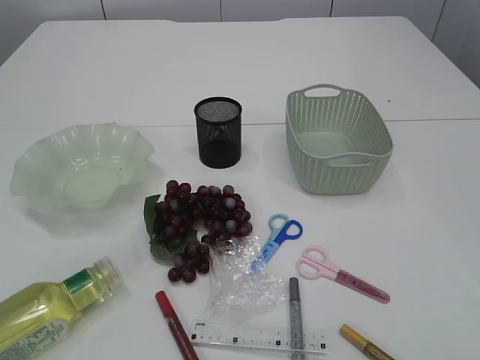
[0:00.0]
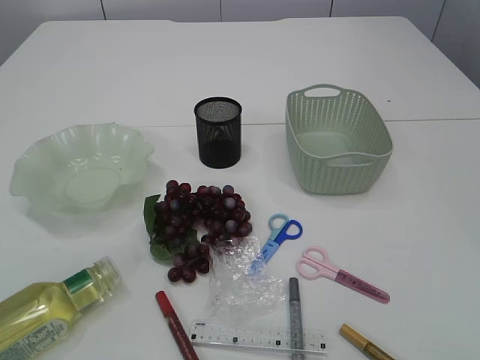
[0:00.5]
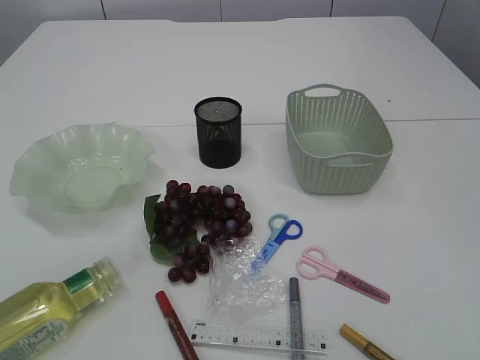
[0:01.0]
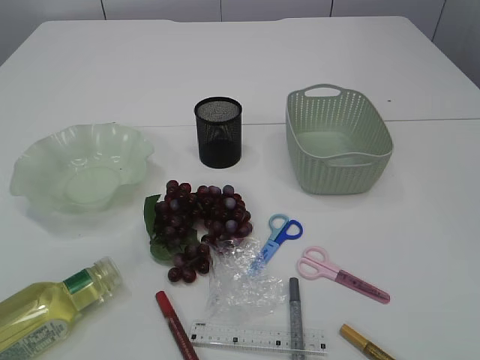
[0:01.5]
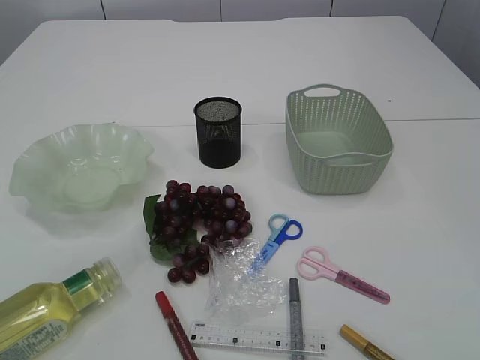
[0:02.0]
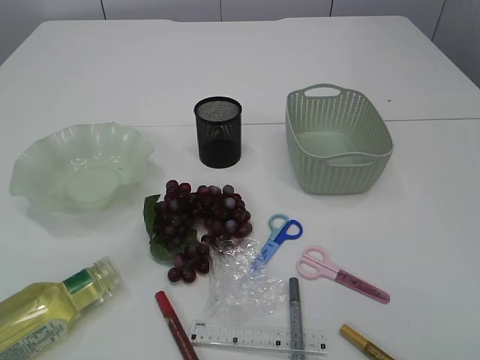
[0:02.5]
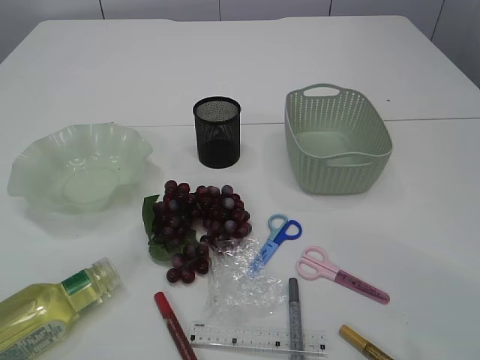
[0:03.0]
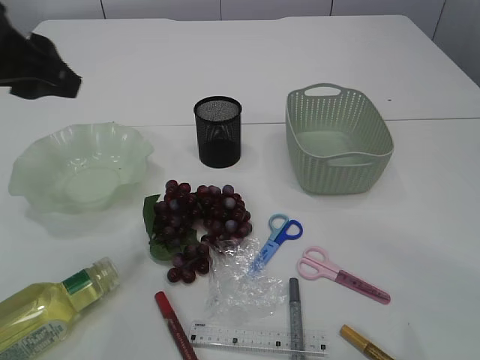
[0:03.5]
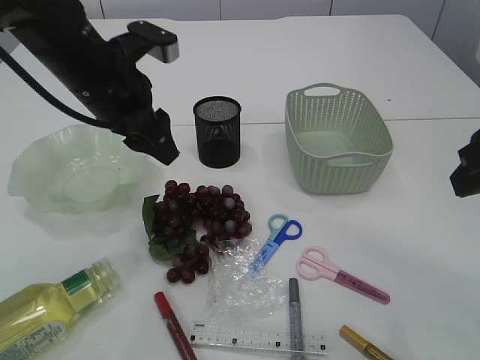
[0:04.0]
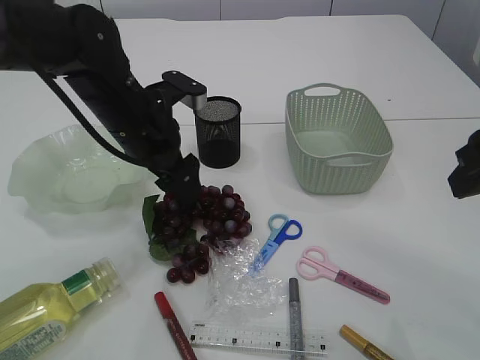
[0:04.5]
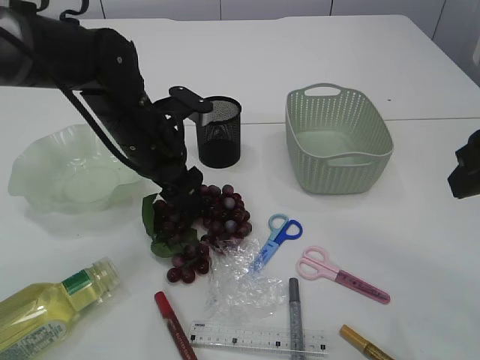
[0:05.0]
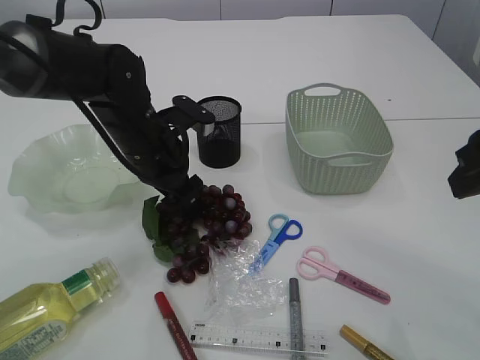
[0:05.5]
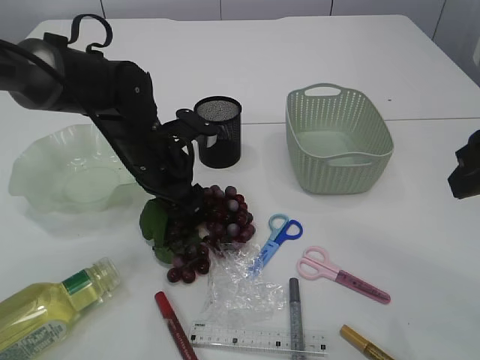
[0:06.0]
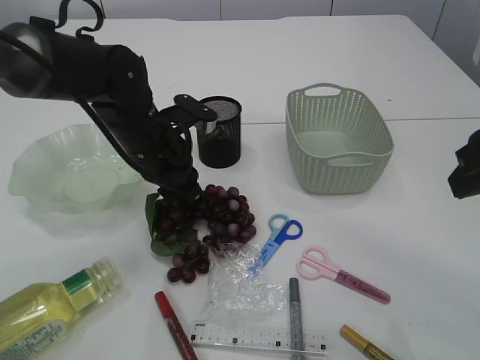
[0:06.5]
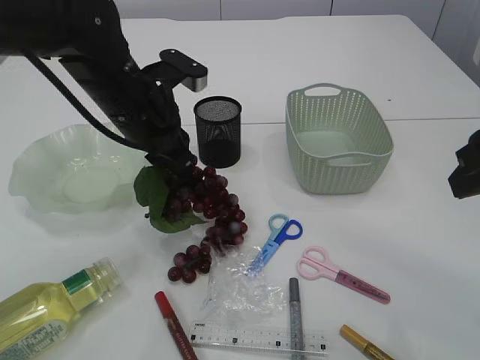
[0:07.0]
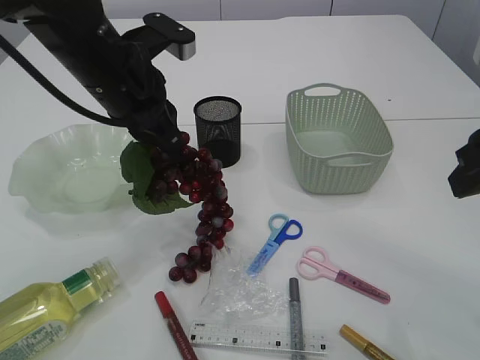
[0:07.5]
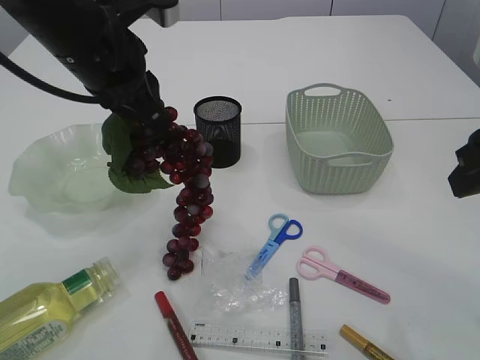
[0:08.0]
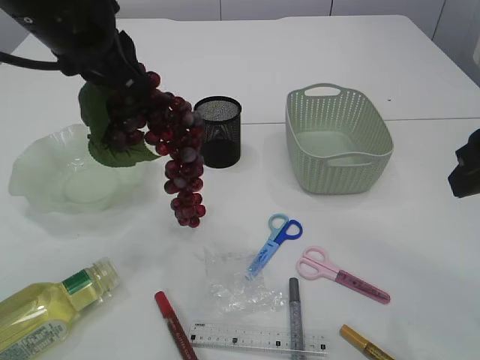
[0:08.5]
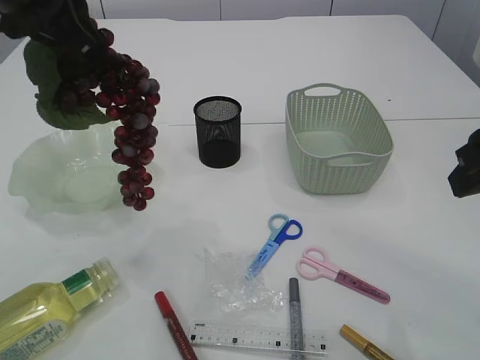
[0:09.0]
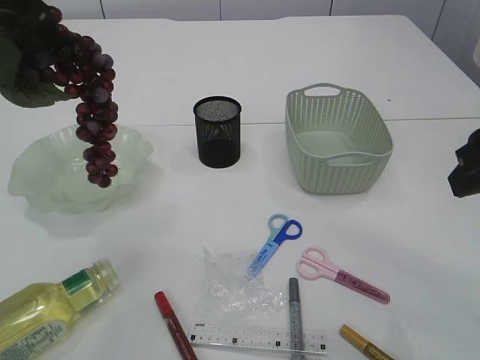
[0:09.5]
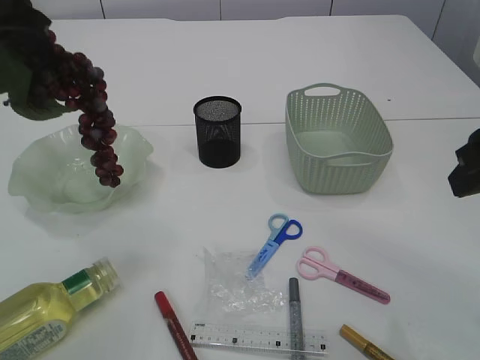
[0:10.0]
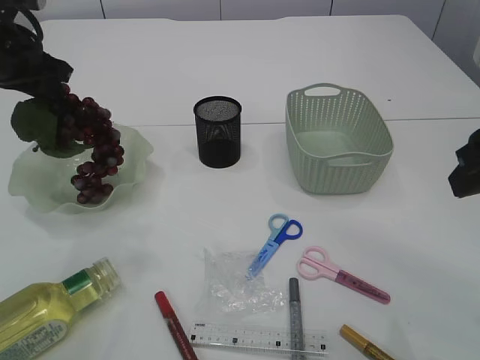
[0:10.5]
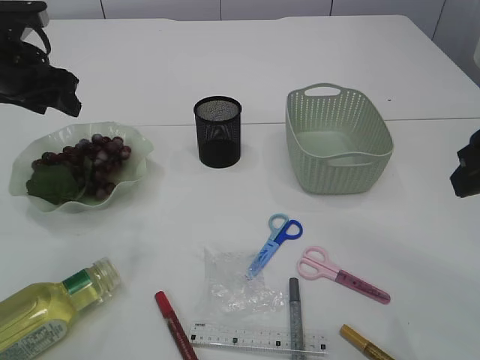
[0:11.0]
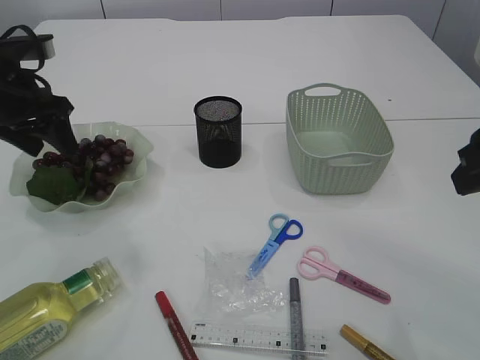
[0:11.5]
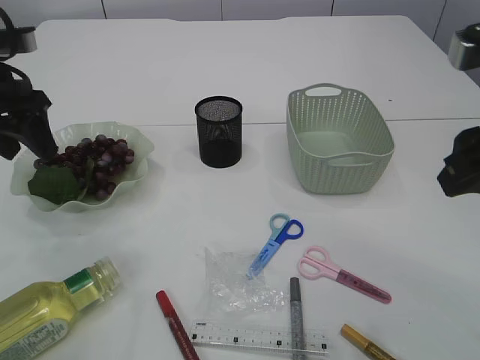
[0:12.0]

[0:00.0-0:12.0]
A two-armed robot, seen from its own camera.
Step, 0:00.0 to 0:08.5: Pick up the grapes.
0:02.0 to 0:04.0: The left gripper is displaced forward and to the right by roughly 40 cm; the right gripper goes approximately 25 cm forward.
0:04.0 to 0:06.0: The left gripper goes approximately 10 cm downward, and opens.
0:06.0 to 0:08.0: The left gripper is displaced upward by roughly 15 cm, and closes.
0:08.0 to 0:10.0: The left gripper travels to the left and upward by roughly 15 cm.
0:10.0 to 0:12.0: The left gripper is displaced downward by about 10 cm, and opens up.

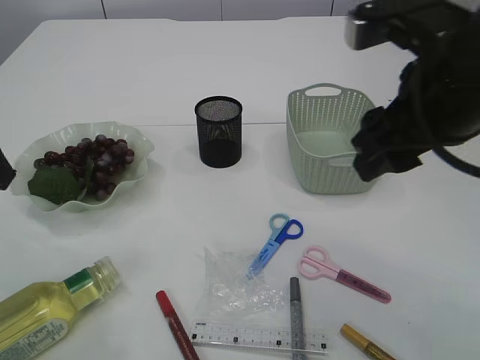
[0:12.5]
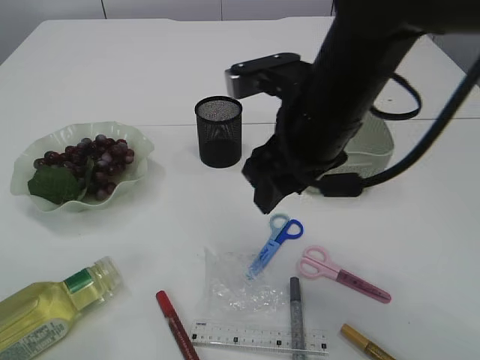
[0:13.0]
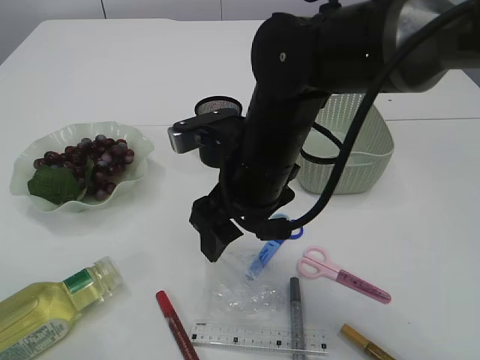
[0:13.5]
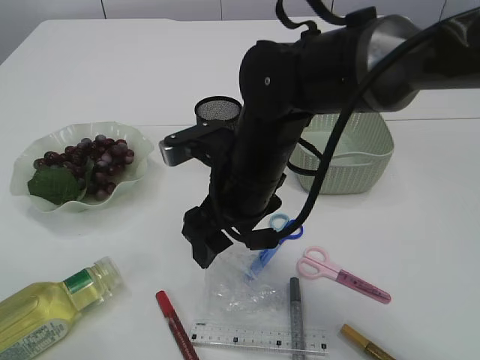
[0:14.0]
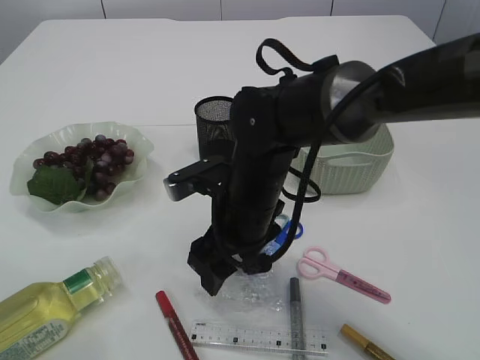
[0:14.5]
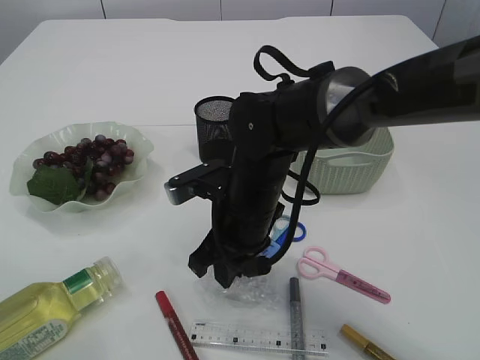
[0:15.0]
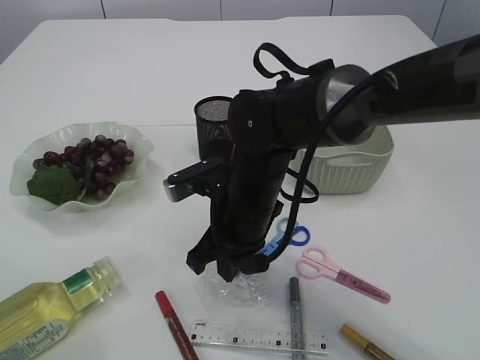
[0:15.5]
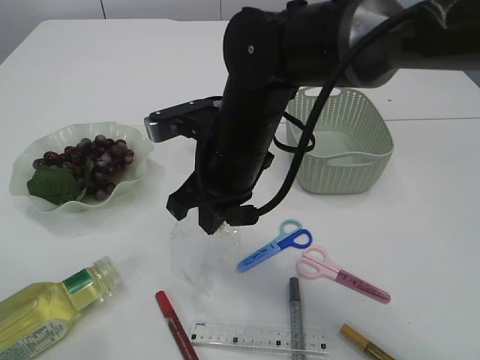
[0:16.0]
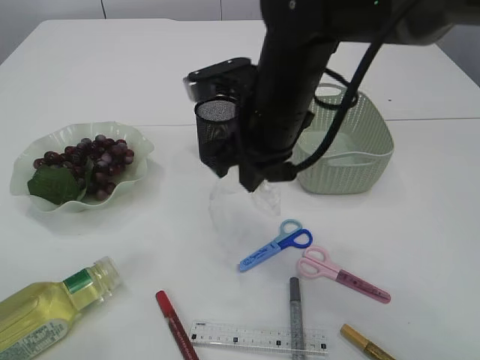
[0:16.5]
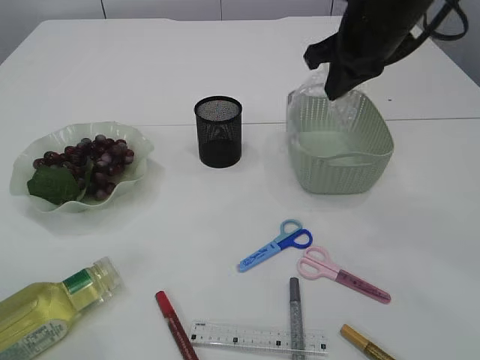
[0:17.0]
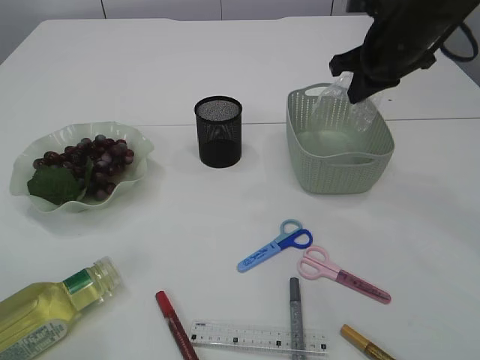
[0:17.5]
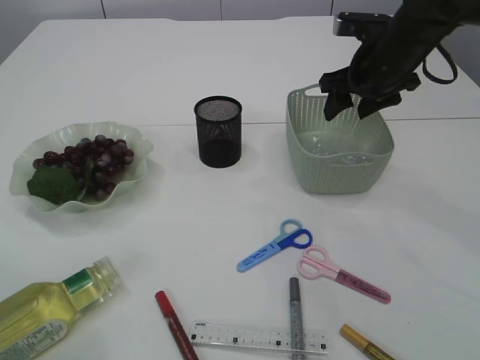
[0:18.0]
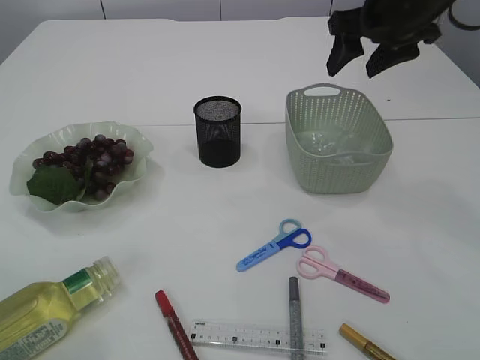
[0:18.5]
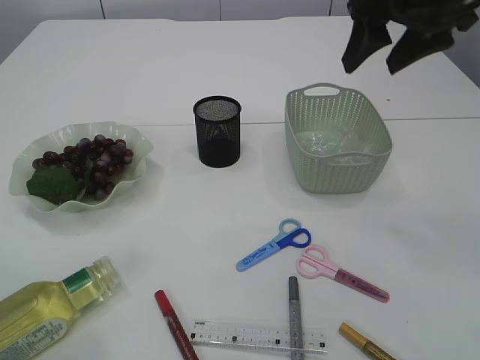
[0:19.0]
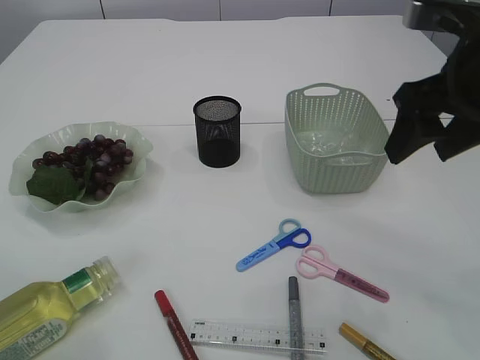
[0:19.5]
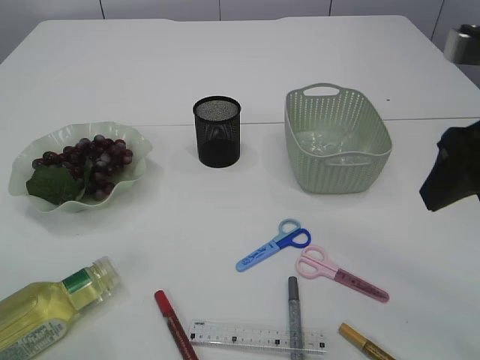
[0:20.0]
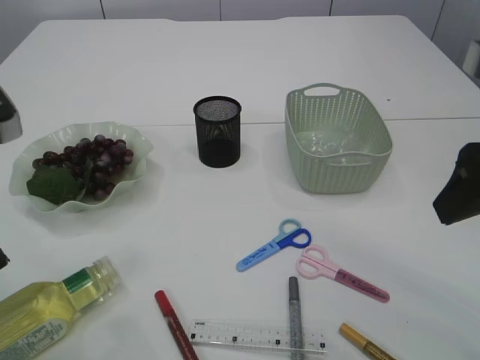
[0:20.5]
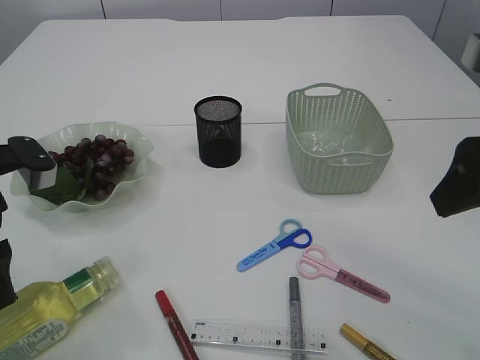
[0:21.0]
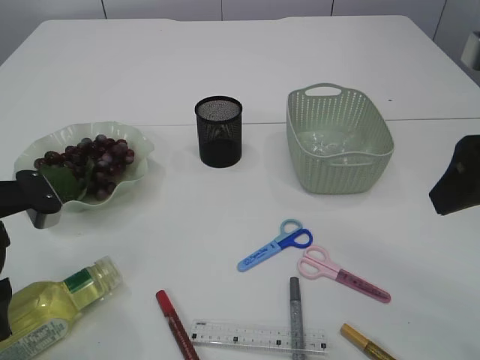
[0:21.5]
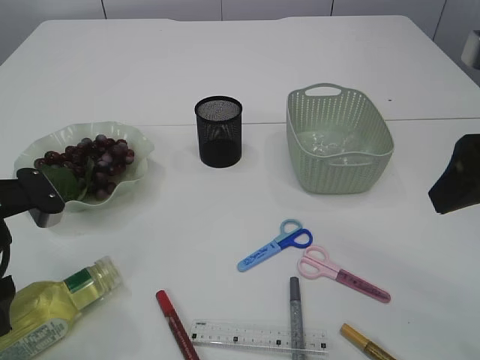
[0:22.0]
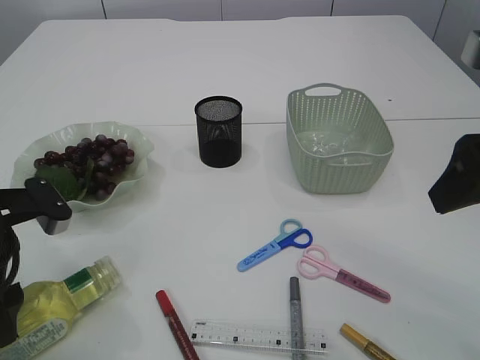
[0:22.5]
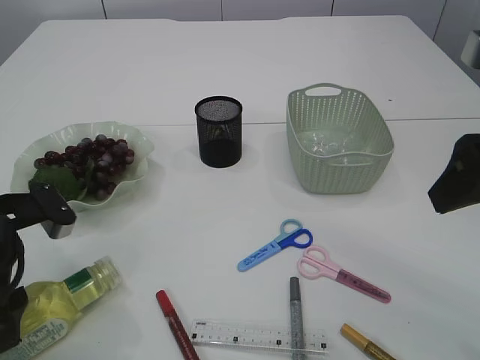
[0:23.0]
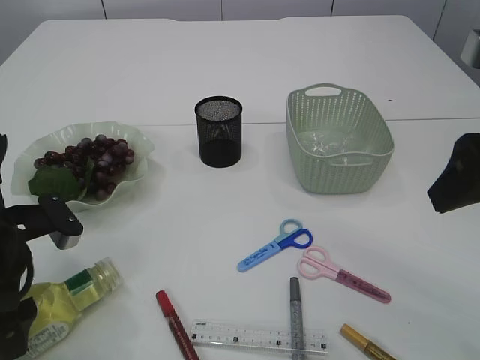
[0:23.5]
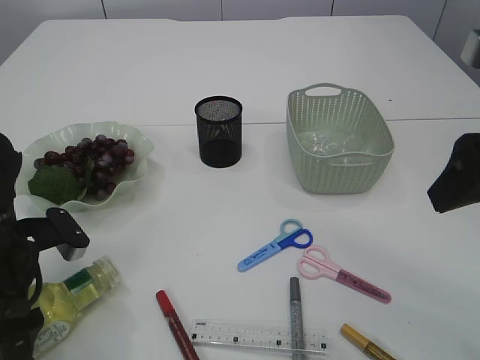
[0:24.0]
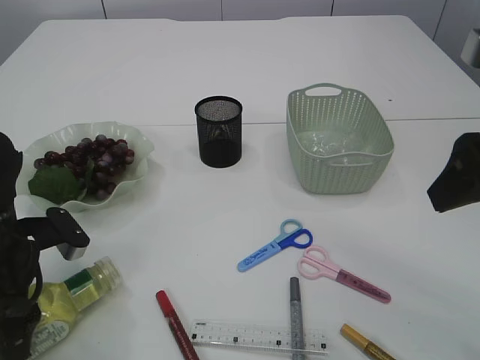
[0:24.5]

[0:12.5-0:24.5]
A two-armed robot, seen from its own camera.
Step, 0:12.5 to 0:16.0: Pick up the plastic.
Step, 0:16.5 to 0:18.5: Place the plastic in the basket.
0:12.5 to 0:14.5: The left gripper shifts some 5 cm backward. Meanwhile the right gripper heads downward, to the left and forward, covering approximately 25 cm.
0:14.5 to 0:16.5: The right gripper heads upward, covering some 10 cm, and closes up.
0:16.5 to 0:18.5: The right gripper goes about 20 cm to the right, forward and upward, and opens.
0:18.5 to 0:20.5: The right gripper moves backward, roughly 25 cm.
0:20.5 to 0:22.5: The left gripper shifts about 10 cm downward.
0:22.5 to 0:24.5: The left gripper ends up roughly 5 cm from where it was.

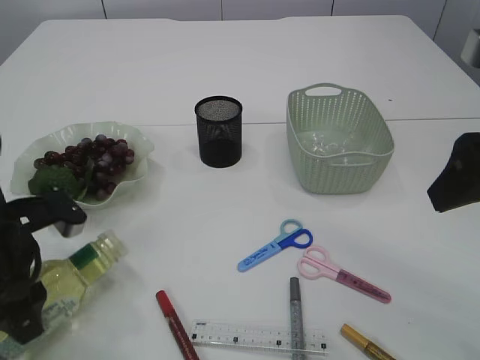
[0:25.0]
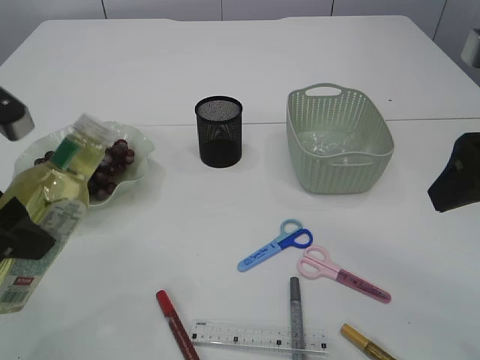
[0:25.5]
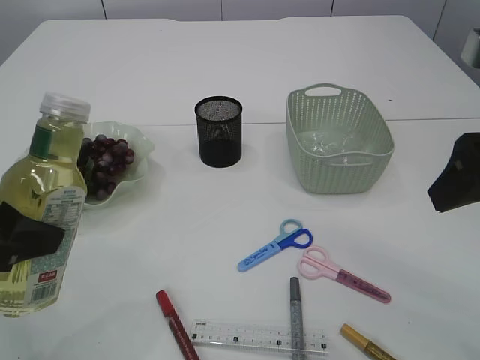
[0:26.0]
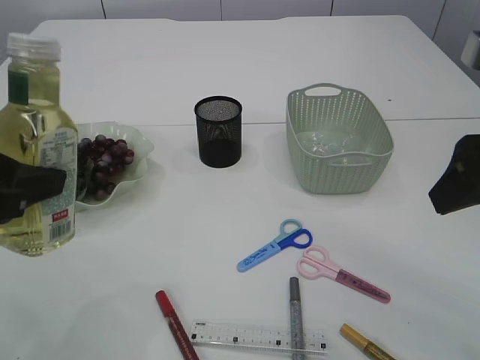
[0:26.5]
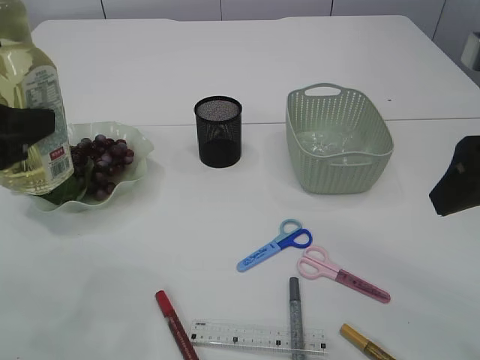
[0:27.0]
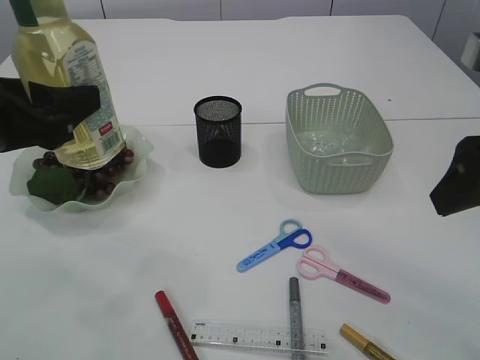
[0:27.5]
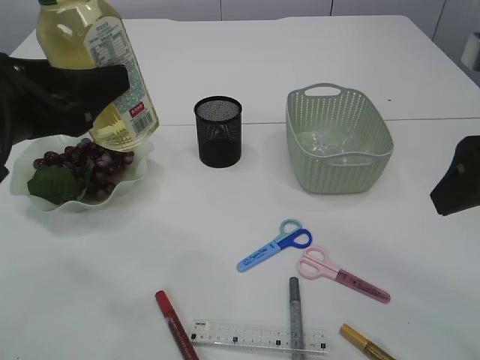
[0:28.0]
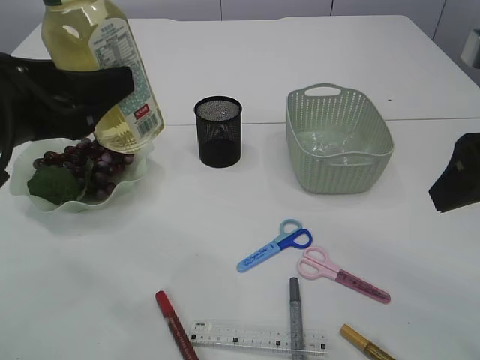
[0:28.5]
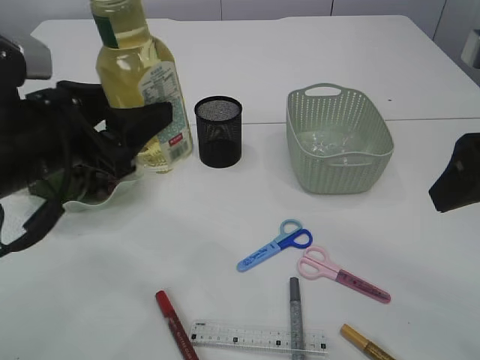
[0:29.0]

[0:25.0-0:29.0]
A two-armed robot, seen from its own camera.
0:25.0 to 0:27.0: The left gripper shifts roughly 15 cm upward.
0:27.0 to 0:29.0: The left gripper shifts about 5 cm to the right.
